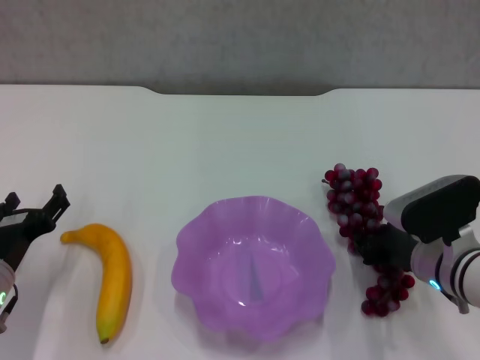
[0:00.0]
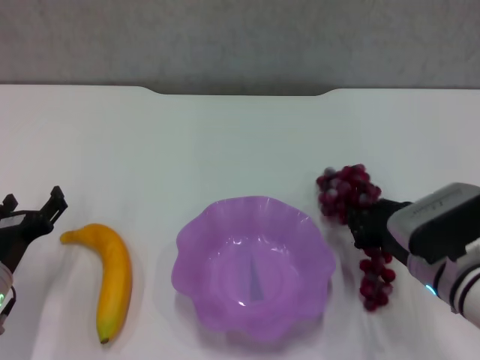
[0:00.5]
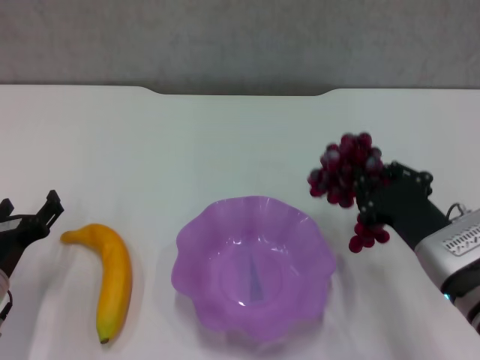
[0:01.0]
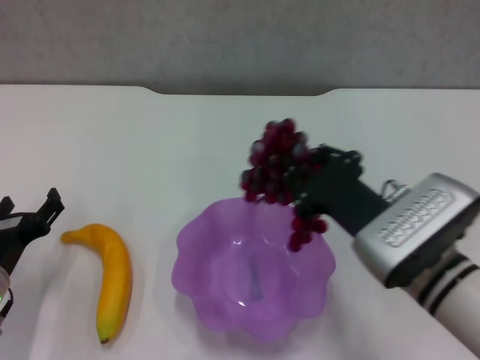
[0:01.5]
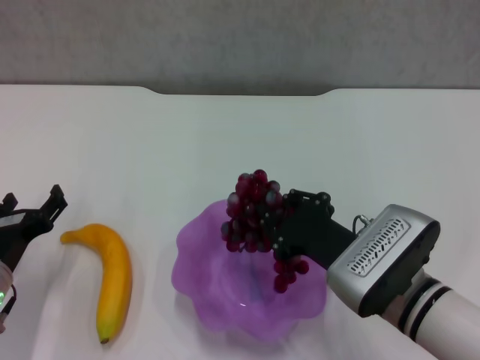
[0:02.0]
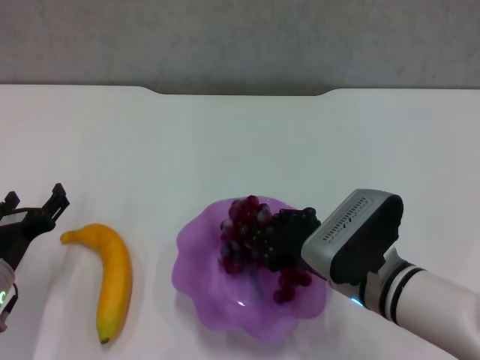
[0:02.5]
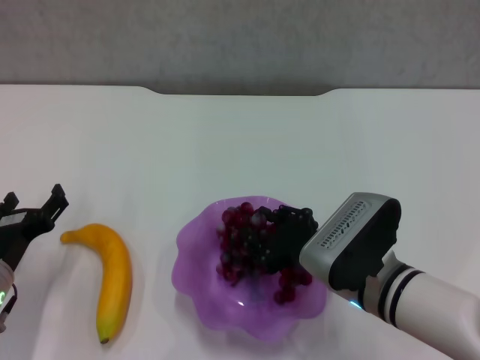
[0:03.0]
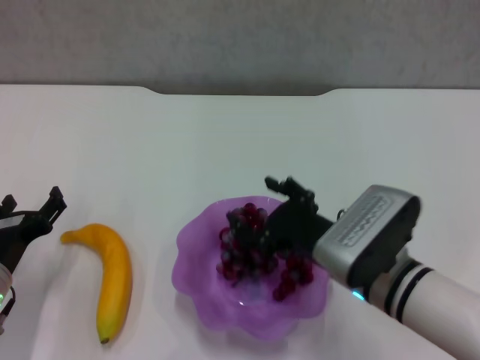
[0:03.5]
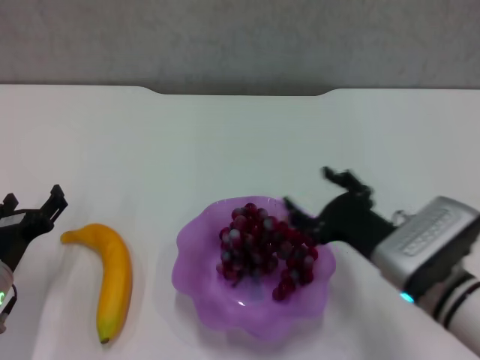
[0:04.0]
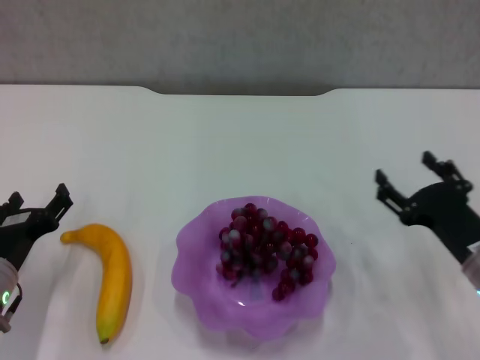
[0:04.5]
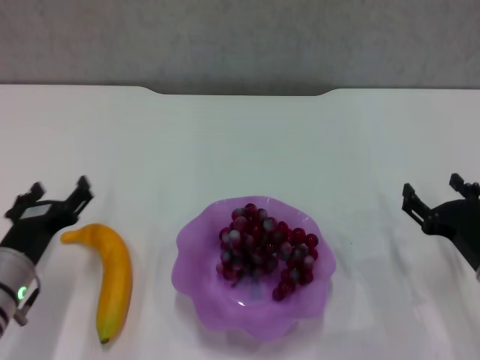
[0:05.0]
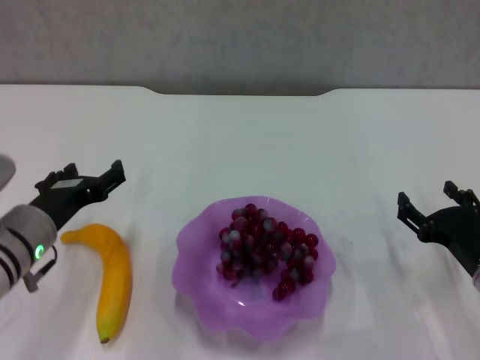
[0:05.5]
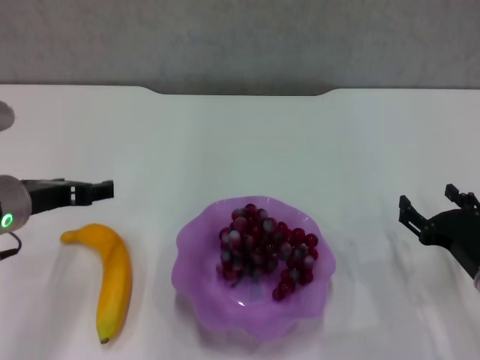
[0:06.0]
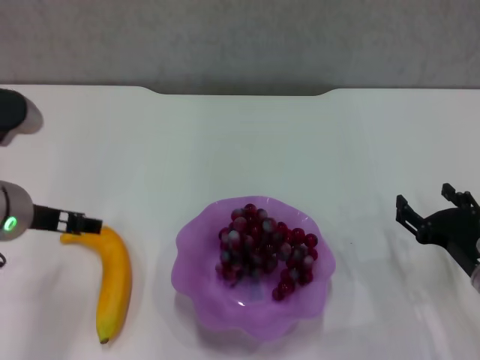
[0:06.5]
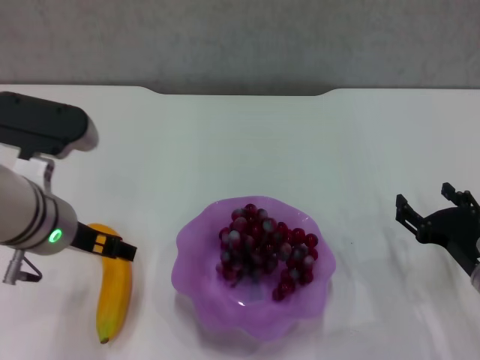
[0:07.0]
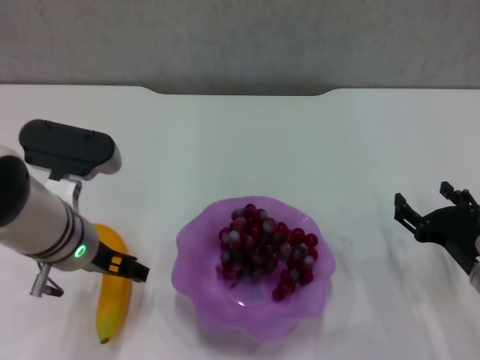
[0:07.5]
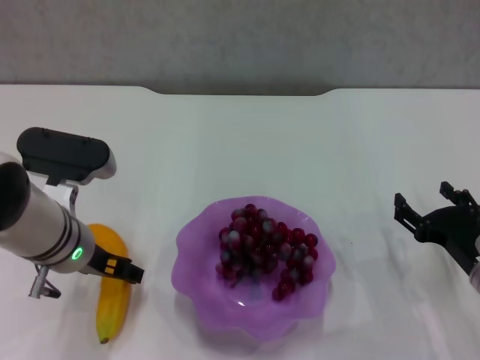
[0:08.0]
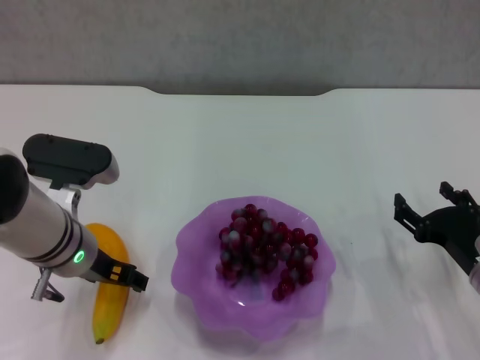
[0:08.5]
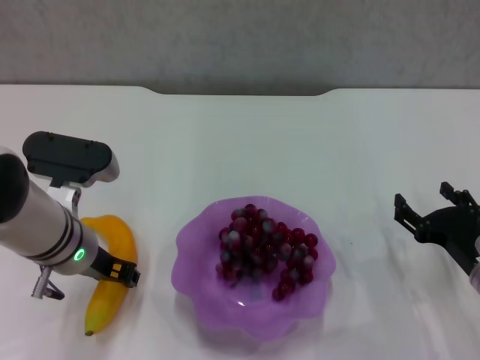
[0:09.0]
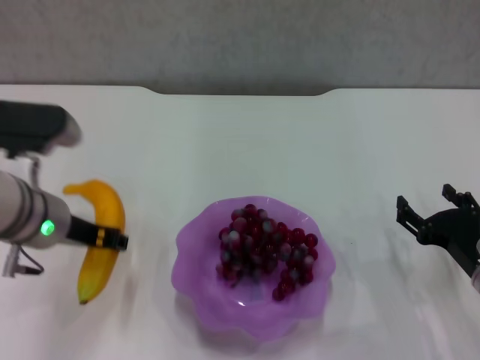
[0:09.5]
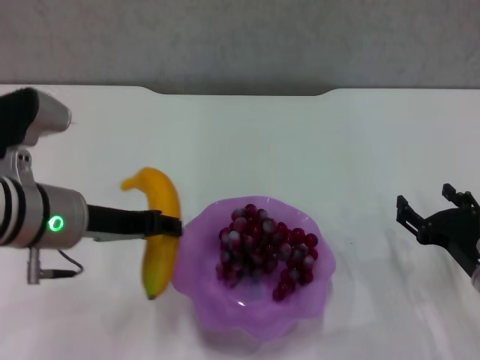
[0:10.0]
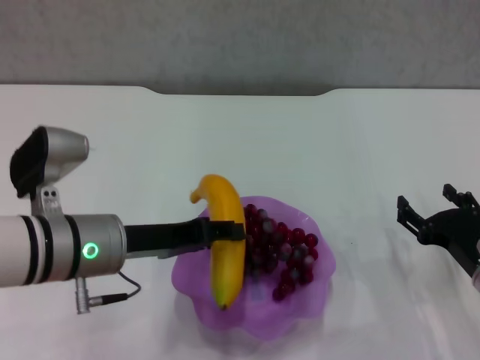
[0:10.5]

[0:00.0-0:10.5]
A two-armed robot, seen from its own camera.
Step, 0:00.0 to 0:04.0: Place the grape in the purple plate with right gripper.
Step, 0:04.5 to 0:09.0: Grasp the banana with left gripper.
0:00.0 to 0:02.0: The right gripper goes about 10 cm to the left and backward.
0:02.0 to 0:04.0: The right gripper opens its fingers.
0:04.0 to 0:06.5: The left gripper moves upward, roughly 15 cm; the right gripper moves to the right, roughly 10 cm.
0:06.5 to 0:08.5: The left gripper shifts some 5 cm downward.
0:08.5 to 0:10.5: The left gripper moves roughly 5 cm, and closes.

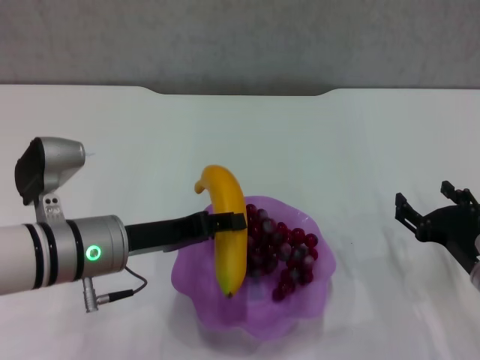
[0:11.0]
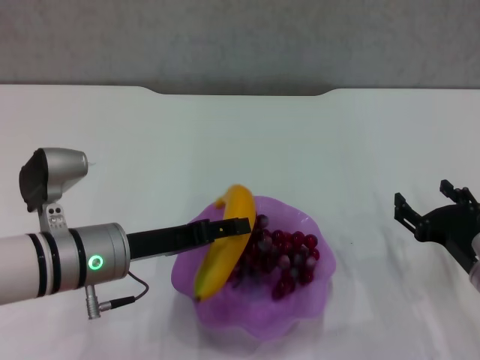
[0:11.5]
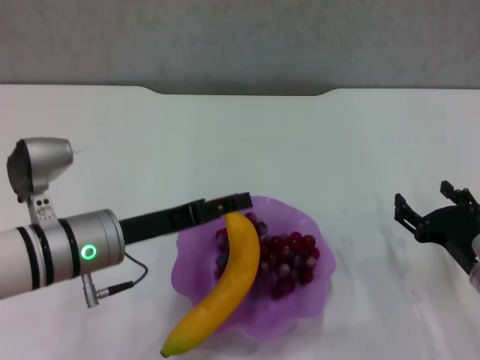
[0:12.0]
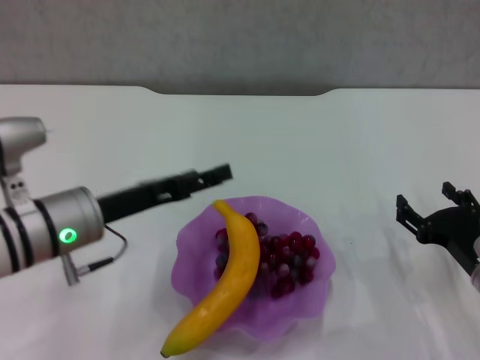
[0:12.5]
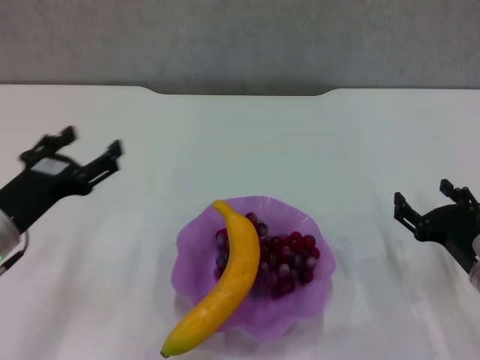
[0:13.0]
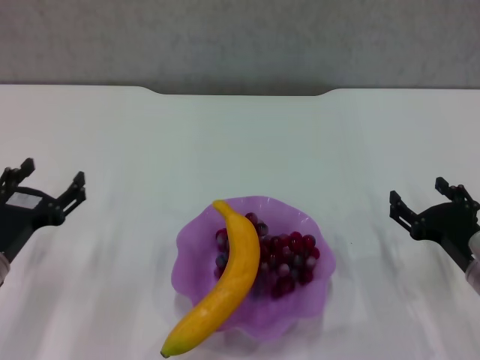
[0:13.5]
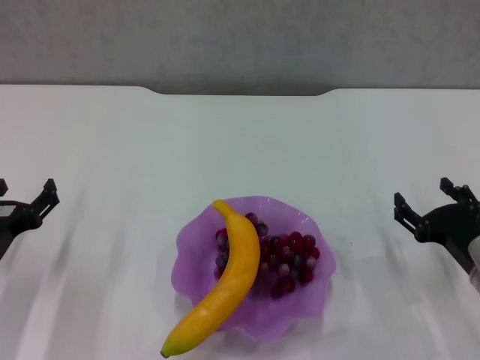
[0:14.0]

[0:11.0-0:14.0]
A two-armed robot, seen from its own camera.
0:11.0 to 0:12.5: The left gripper opens.
0:12.5 to 0:14.0: The left gripper is displaced to the left and downward by some 15 cm.
